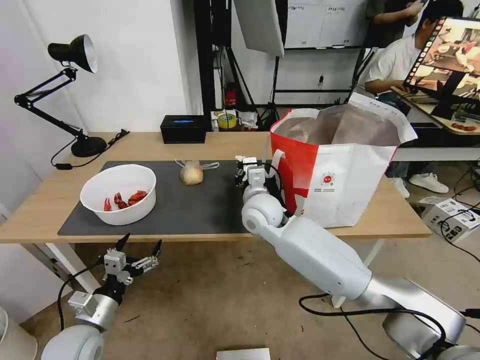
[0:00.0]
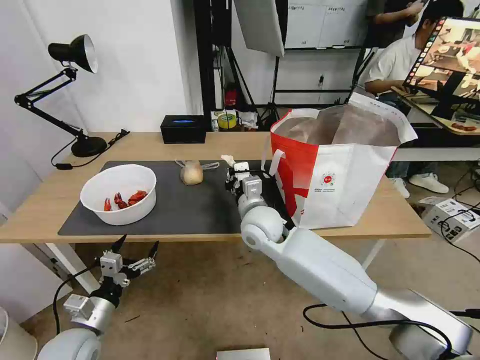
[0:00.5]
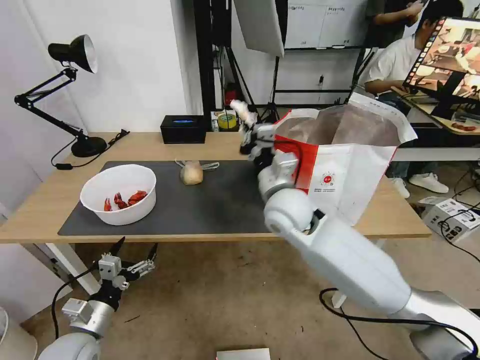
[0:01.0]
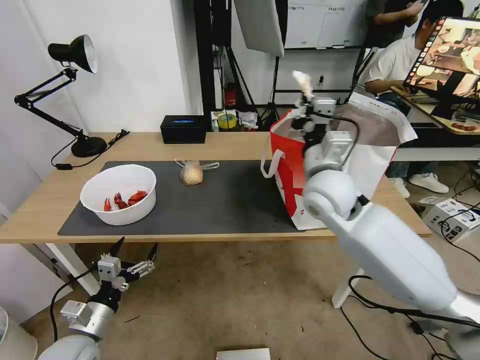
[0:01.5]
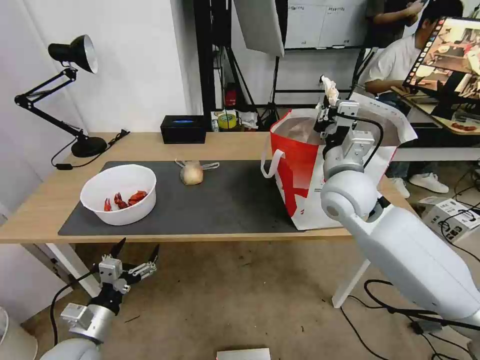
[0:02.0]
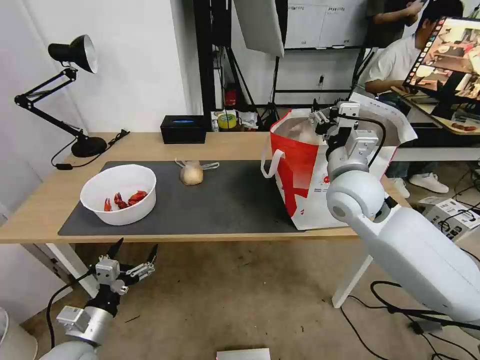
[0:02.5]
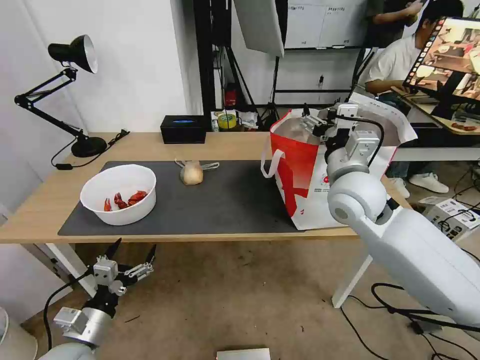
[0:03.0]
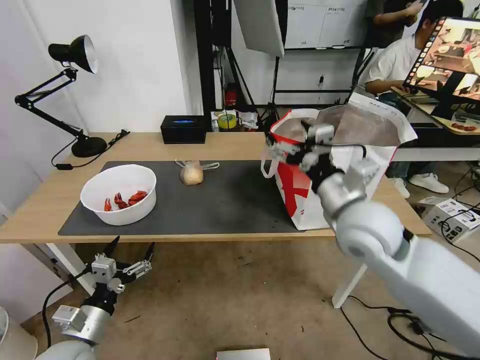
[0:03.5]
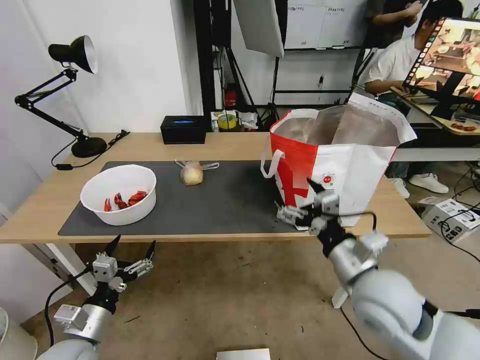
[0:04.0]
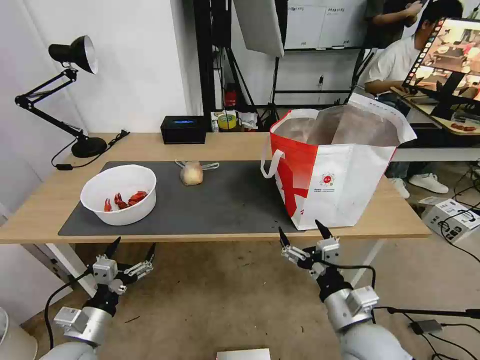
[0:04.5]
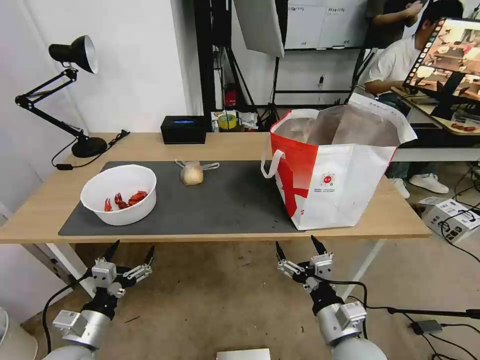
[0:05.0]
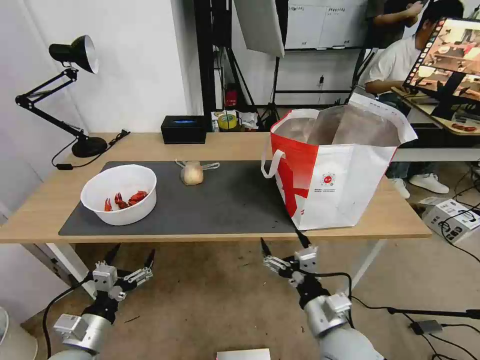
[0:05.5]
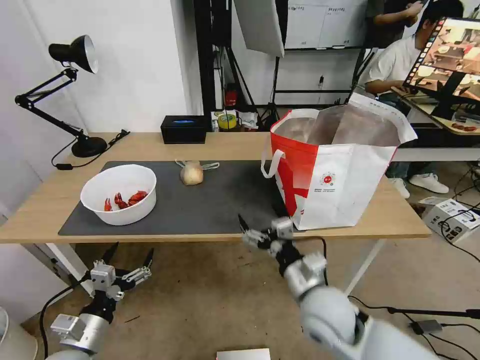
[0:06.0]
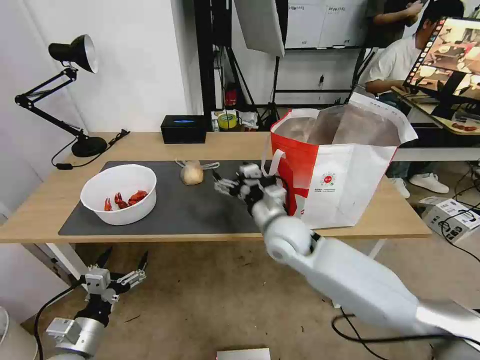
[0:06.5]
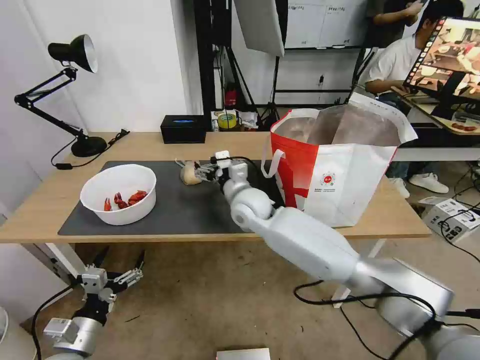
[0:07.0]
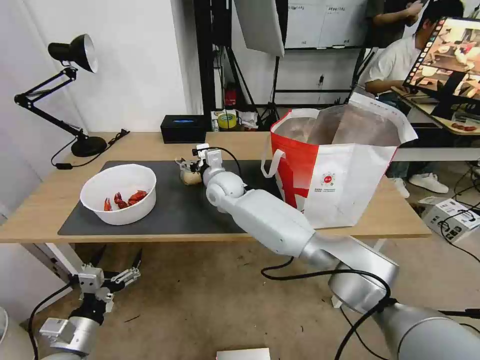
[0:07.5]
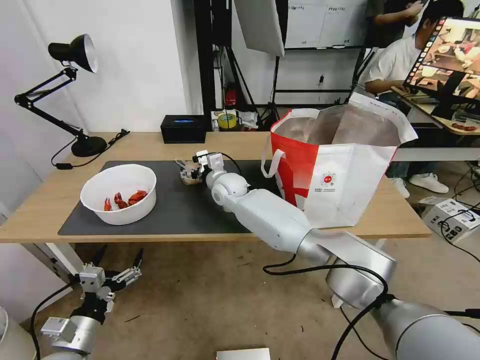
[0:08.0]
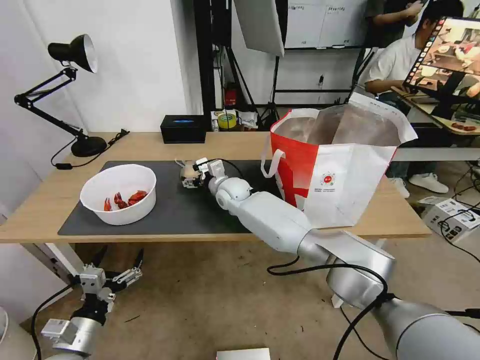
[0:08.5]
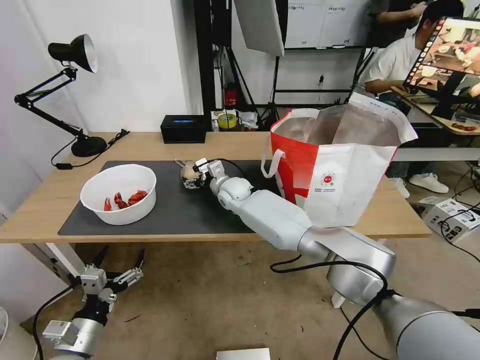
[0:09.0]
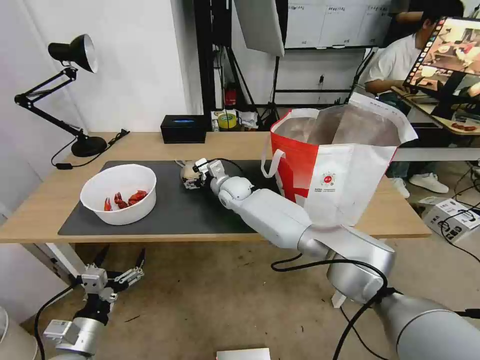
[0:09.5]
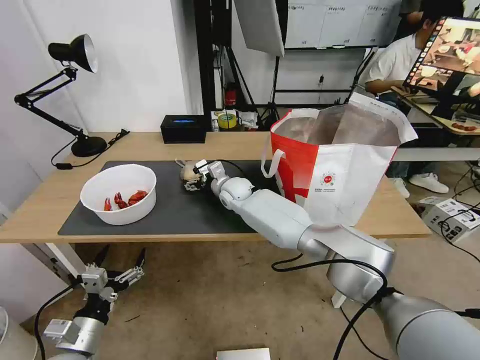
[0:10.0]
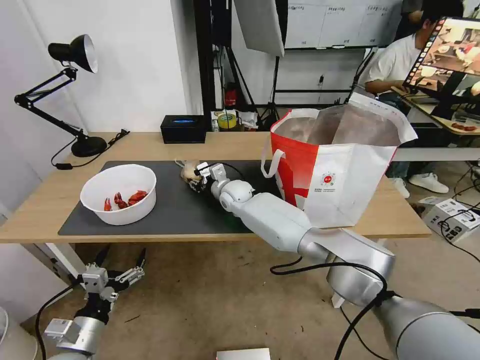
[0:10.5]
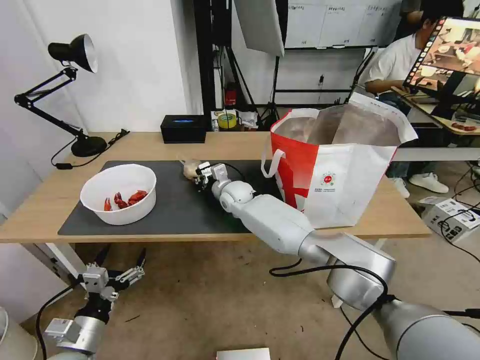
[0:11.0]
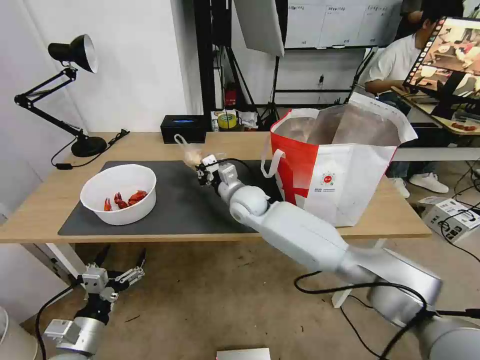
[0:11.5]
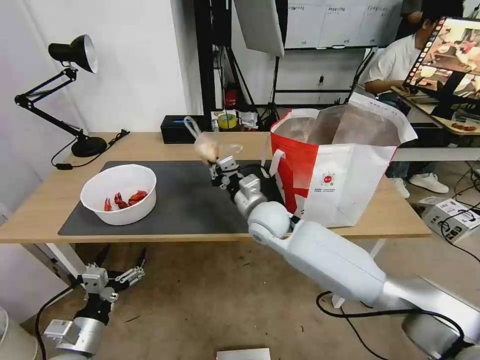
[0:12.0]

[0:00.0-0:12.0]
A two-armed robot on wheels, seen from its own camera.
Task of the whole recording: Pick up the trash from the table and place it into the takeout bag.
0:00.0 to 0:02.0: The right gripper shifts approximately 15 cm to the right and upward.
0:02.0 to 0:04.0: The right gripper shifts some 10 cm backward, and opens its fingers.
0:04.0 to 0:06.0: The right gripper heads downward and backward, covering approximately 20 cm.
0:06.0 to 0:08.0: The right gripper goes some 40 cm forward and to the left.
0:08.0 to 0:10.0: The right gripper shifts about 5 cm downward.
0:10.0 to 0:12.0: The right gripper travels backward and to the right by approximately 10 cm, and closes its fingers.

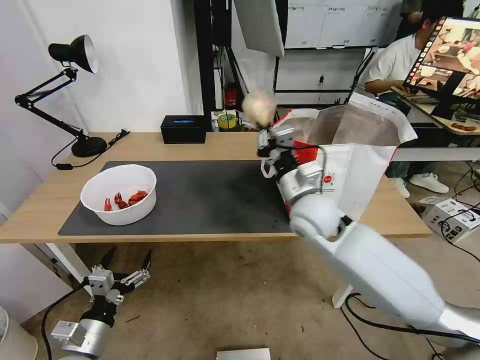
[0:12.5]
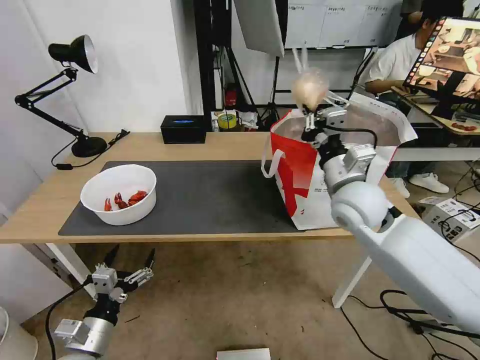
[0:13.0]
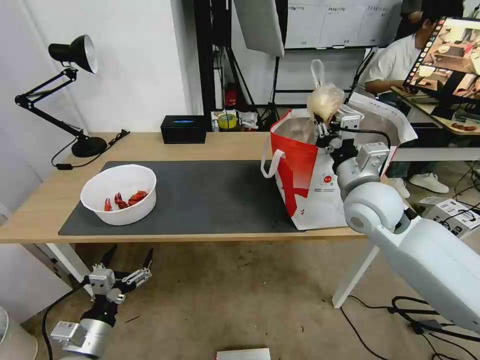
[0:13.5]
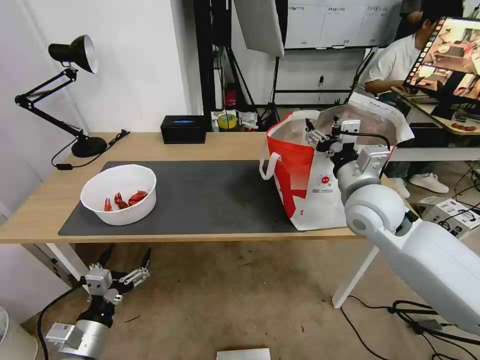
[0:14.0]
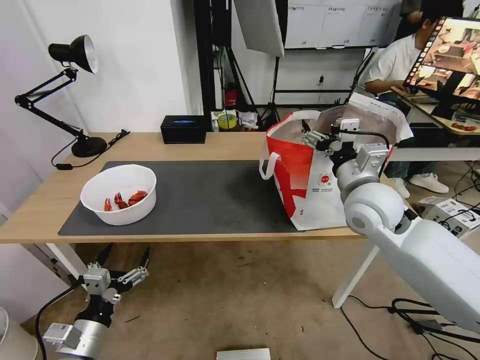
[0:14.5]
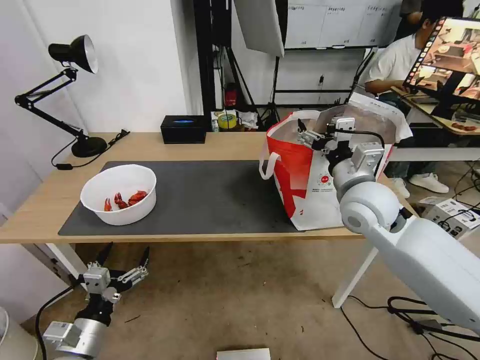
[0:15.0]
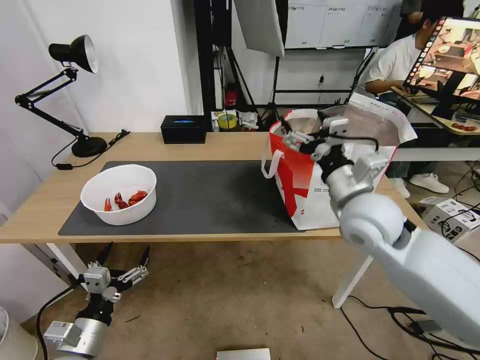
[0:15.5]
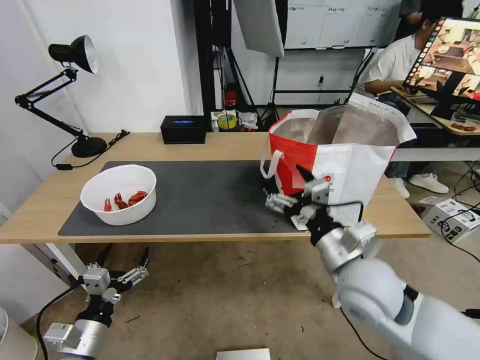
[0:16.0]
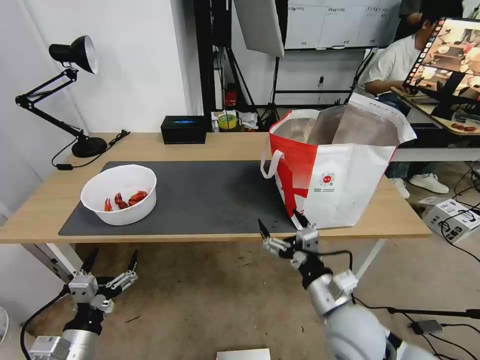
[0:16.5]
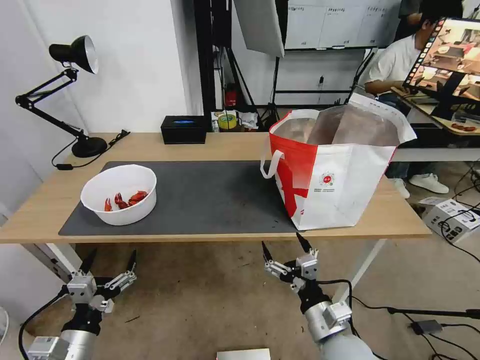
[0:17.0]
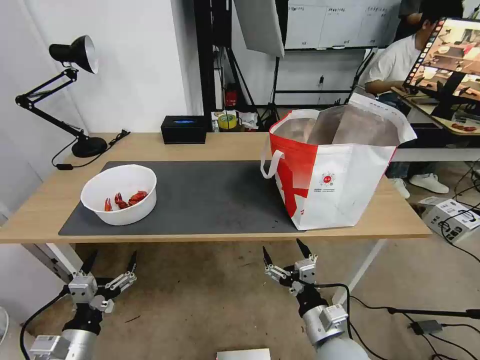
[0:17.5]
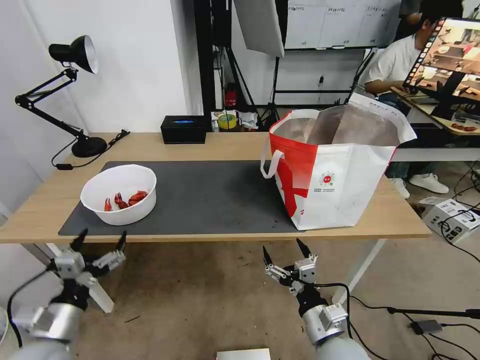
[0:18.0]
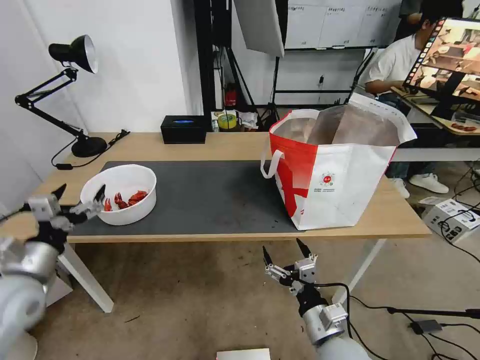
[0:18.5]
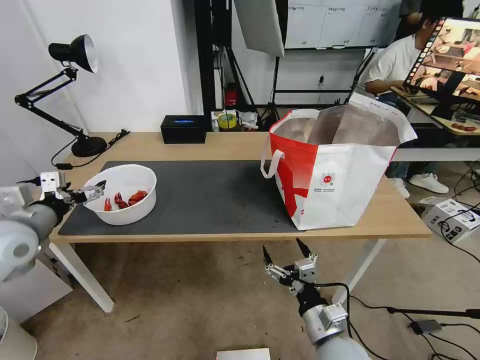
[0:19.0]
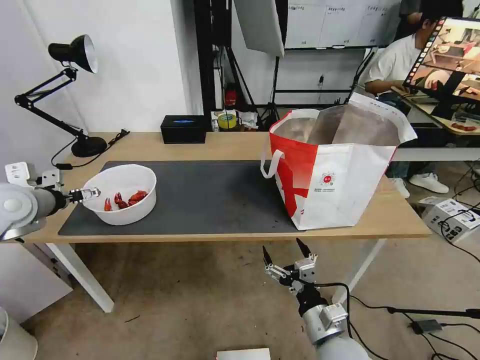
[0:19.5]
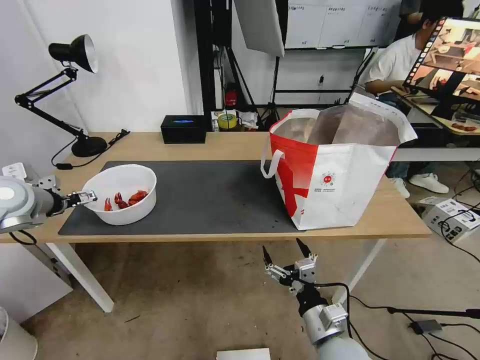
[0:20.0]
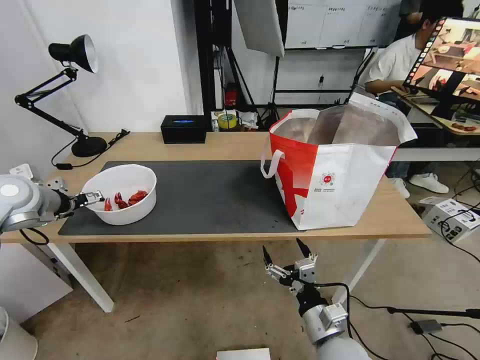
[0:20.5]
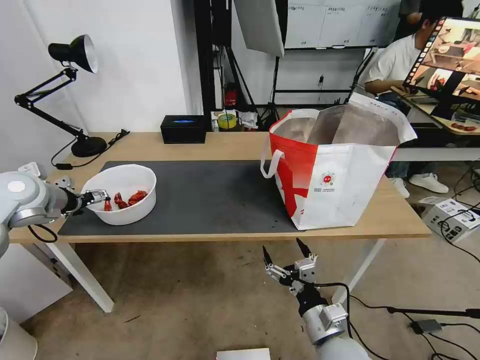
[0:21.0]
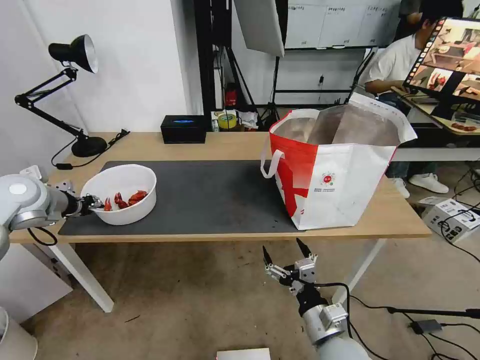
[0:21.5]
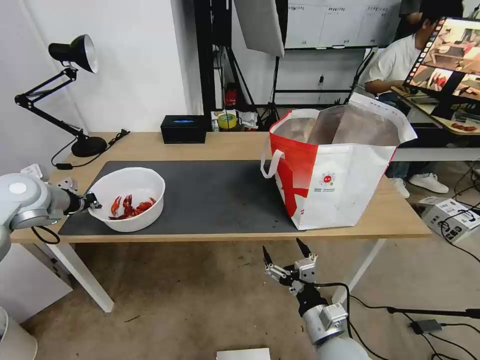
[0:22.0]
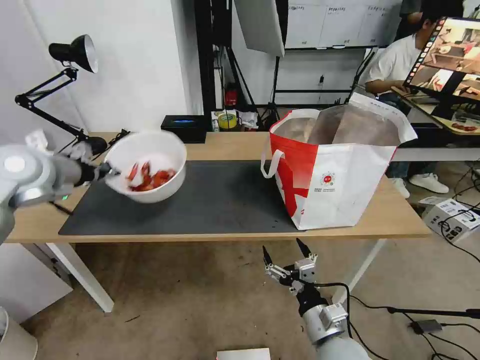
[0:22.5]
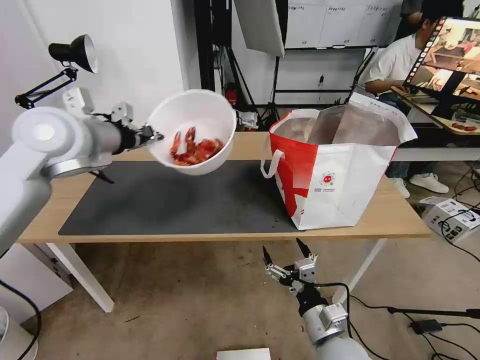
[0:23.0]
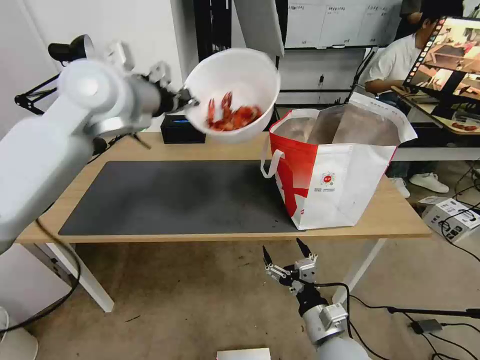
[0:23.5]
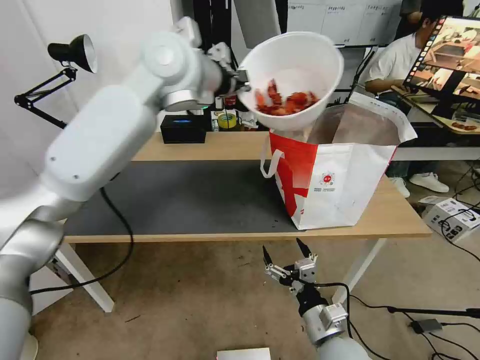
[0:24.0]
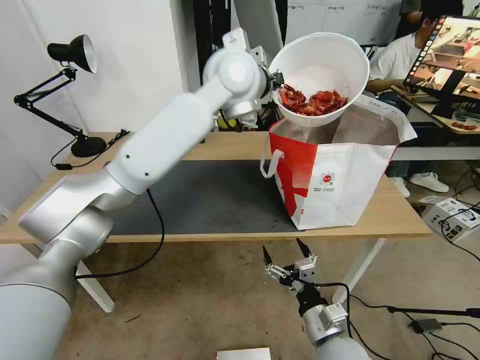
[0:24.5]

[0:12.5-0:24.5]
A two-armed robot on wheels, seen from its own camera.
Task of the whole recording: Pick up the trash from the table and place it into the takeout bag.
0:12.5 to 0:14.5: The right gripper travels to the right and upward by about 20 cm, and opens.
0:14.5 to 0:16.5: The right gripper goes roughly 20 cm backward and downward.
0:16.5 to 0:18.5: The right gripper travels downward by roughly 5 cm; the left gripper travels forward, upward and to the left by roughly 20 cm.
0:18.5 to 0:20.5: The left gripper moves forward and upward, about 20 cm.
0:20.5 to 0:22.5: The left gripper moves upward and to the right, approximately 10 cm, and closes its fingers.
0:22.5 to 0:24.5: The left gripper is displaced to the right by some 35 cm.

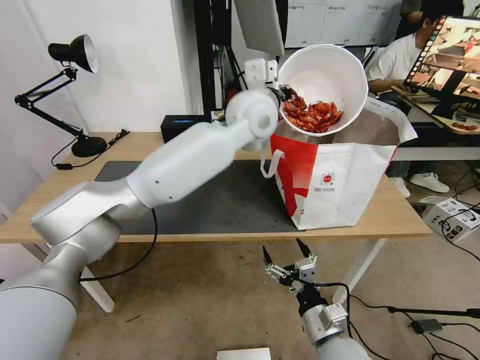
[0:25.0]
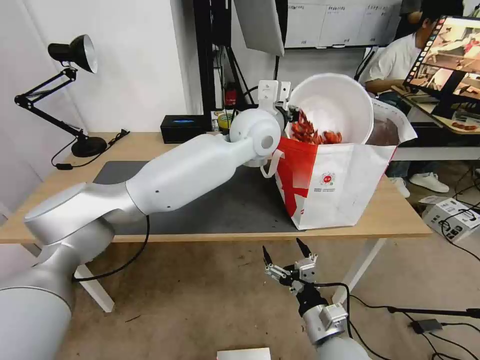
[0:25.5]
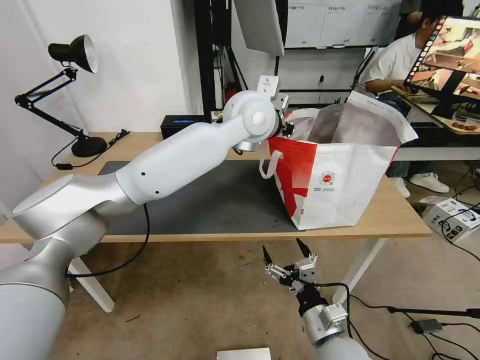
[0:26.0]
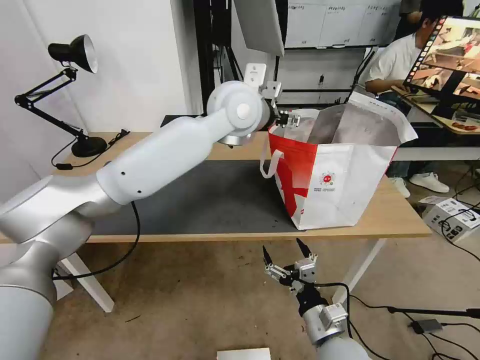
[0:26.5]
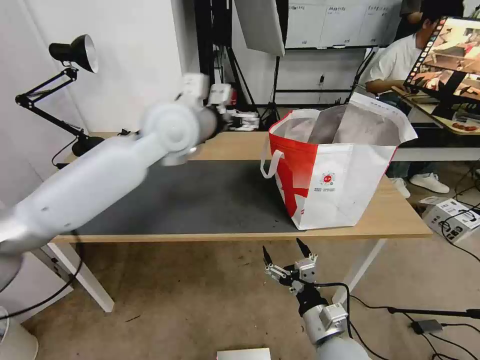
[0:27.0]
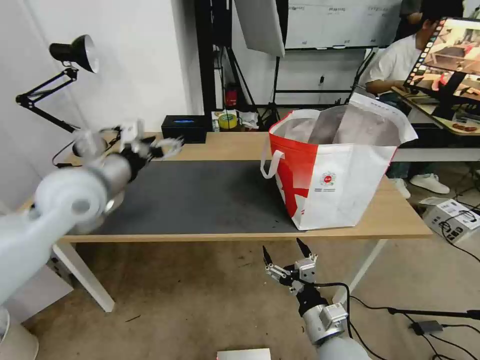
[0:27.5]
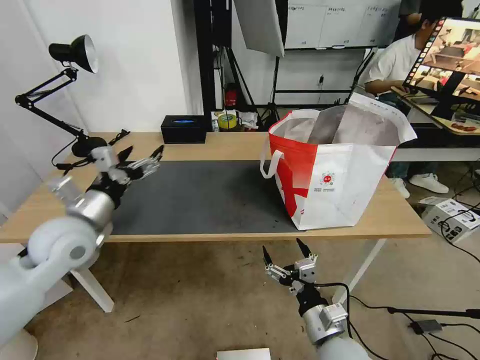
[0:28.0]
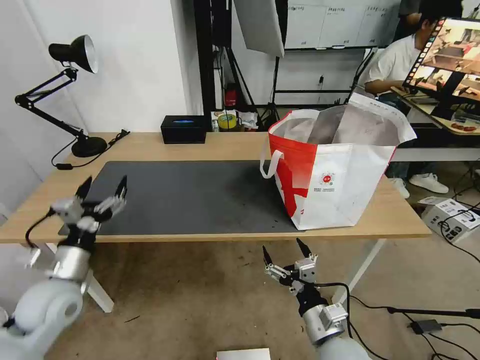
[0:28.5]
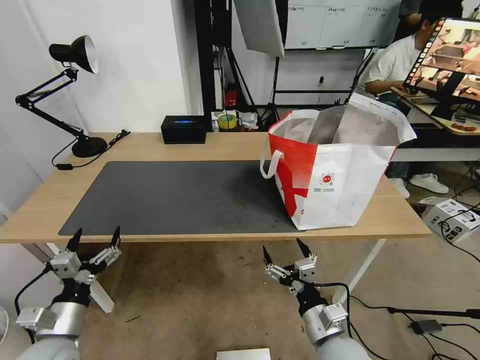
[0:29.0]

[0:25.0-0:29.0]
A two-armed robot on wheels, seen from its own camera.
Task of the whole recording: Pick up the trash from the table and place it into the takeout bag.
0:25.0 to 0:27.0: The left gripper heads to the left, covering roughly 15 cm, and opens.
0:27.0 to 0:29.0: The left gripper moves downward, backward and to the left, some 50 cm.
